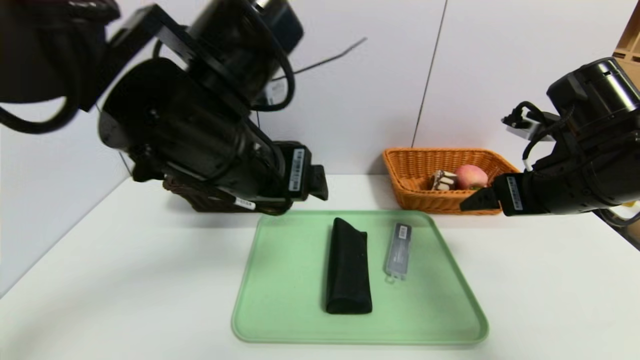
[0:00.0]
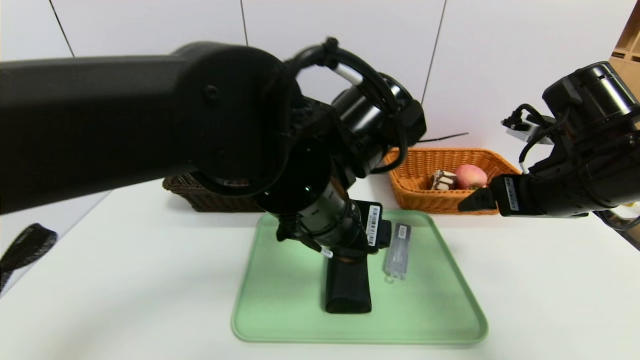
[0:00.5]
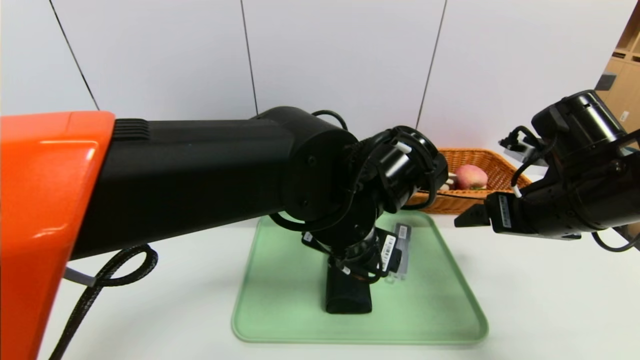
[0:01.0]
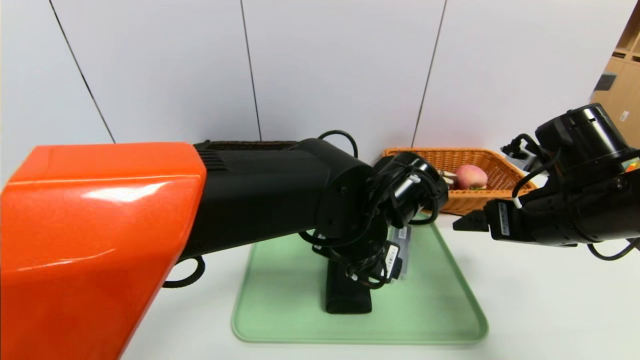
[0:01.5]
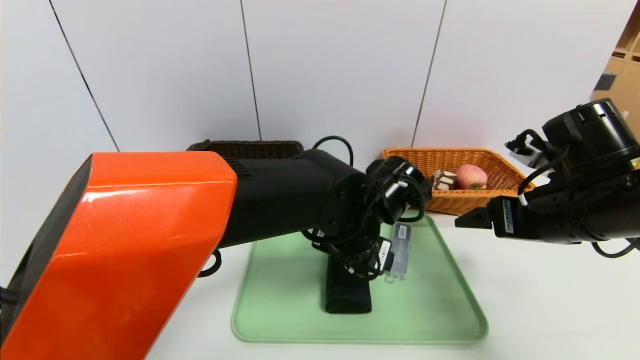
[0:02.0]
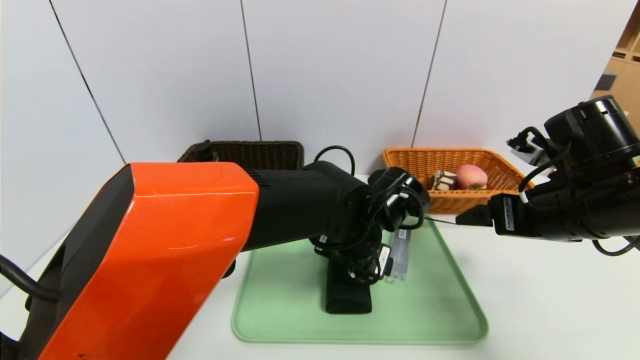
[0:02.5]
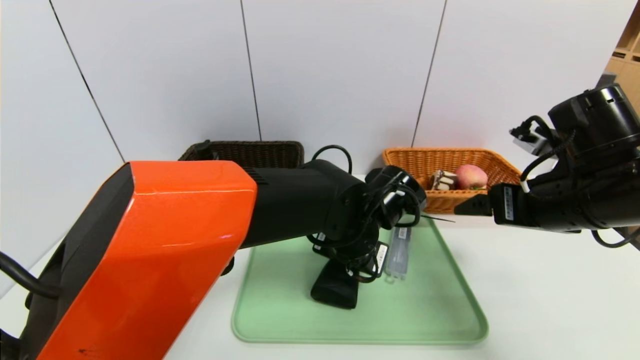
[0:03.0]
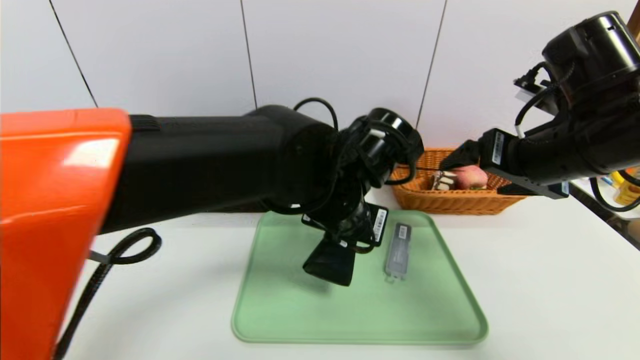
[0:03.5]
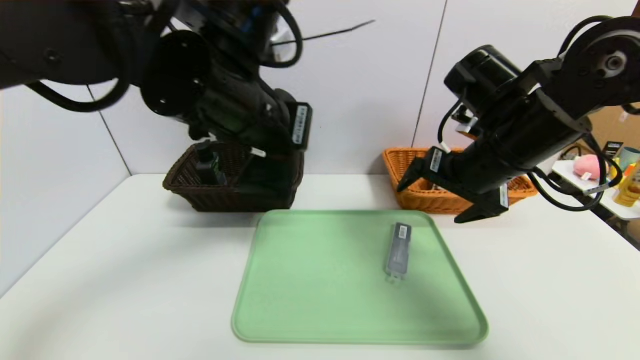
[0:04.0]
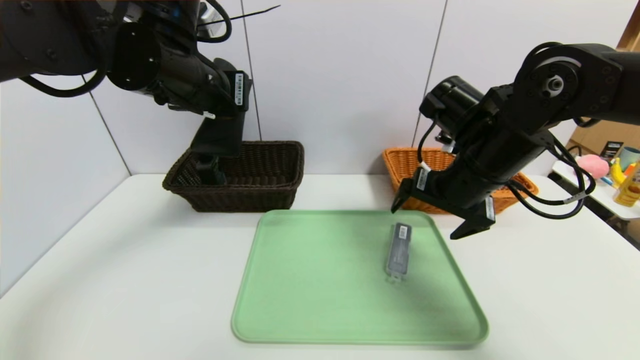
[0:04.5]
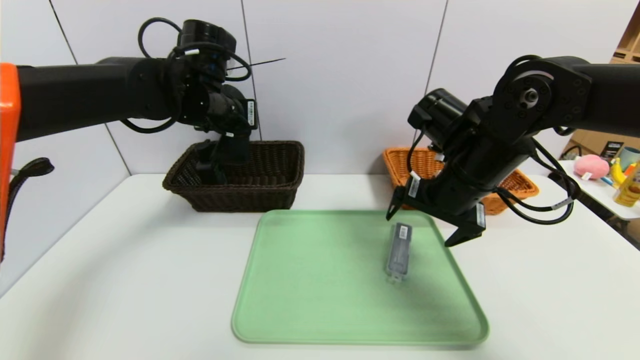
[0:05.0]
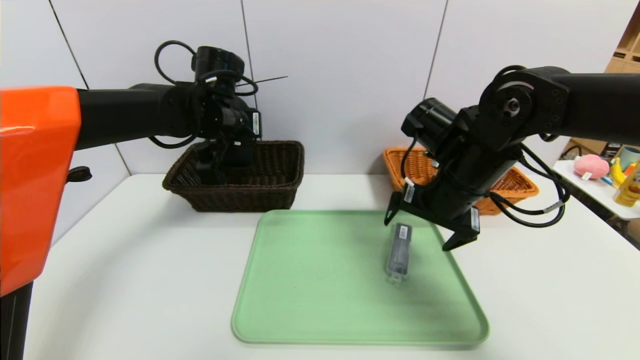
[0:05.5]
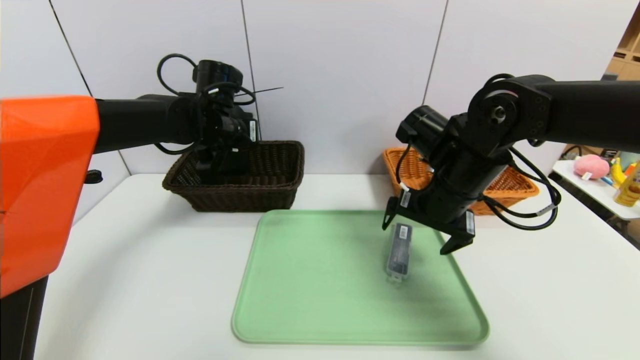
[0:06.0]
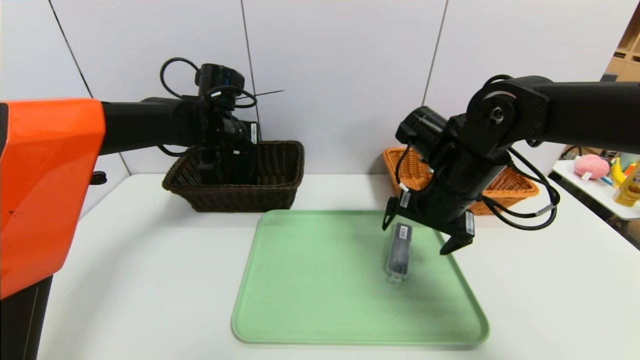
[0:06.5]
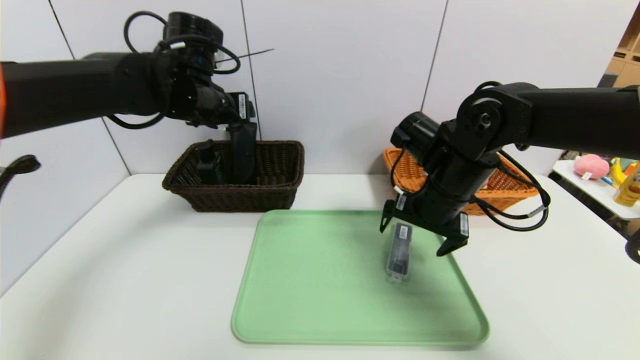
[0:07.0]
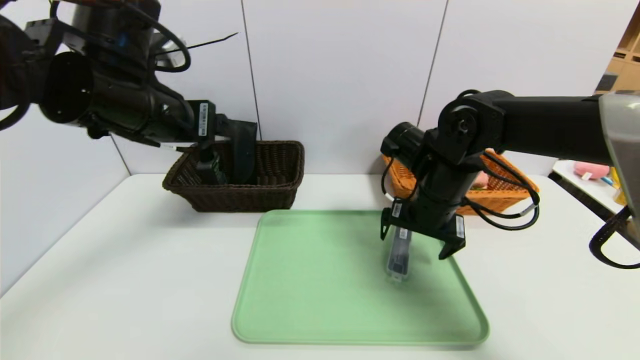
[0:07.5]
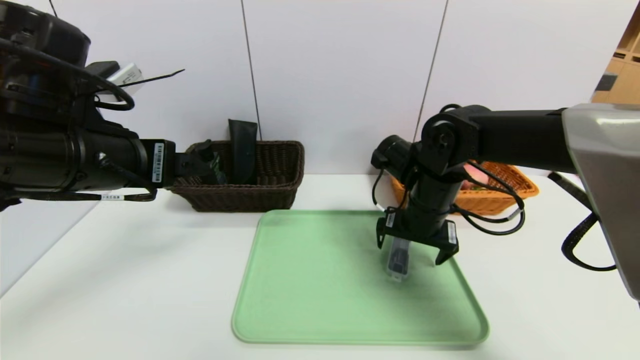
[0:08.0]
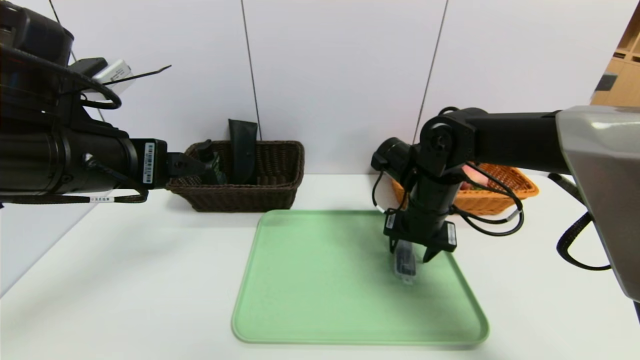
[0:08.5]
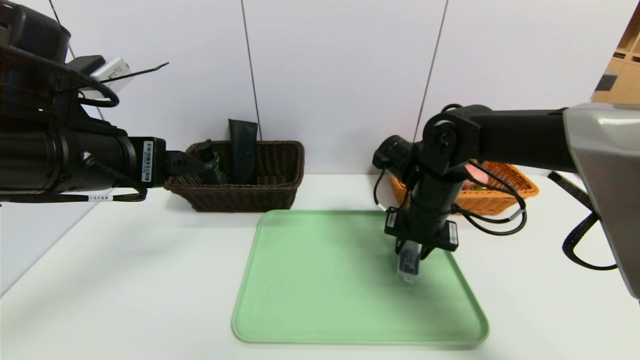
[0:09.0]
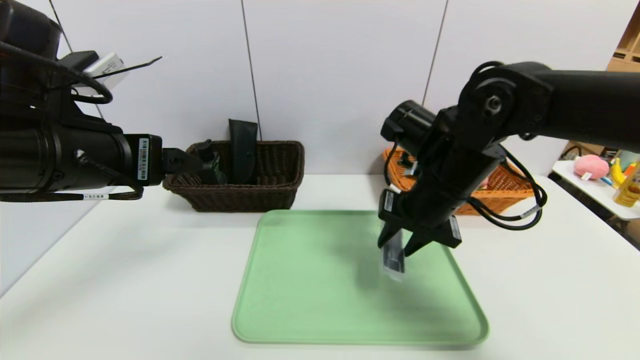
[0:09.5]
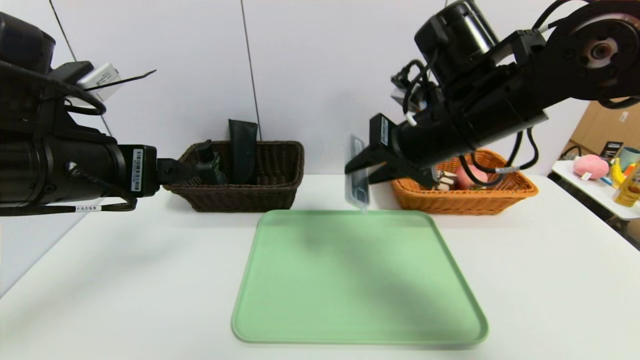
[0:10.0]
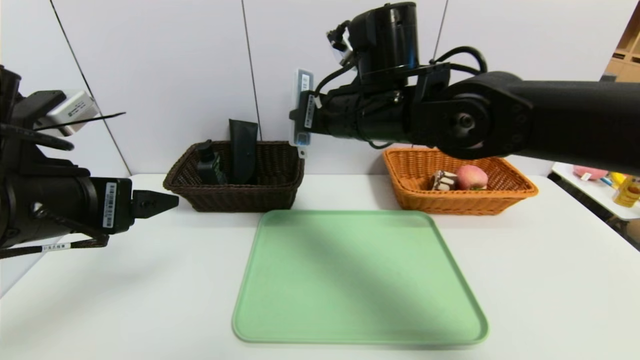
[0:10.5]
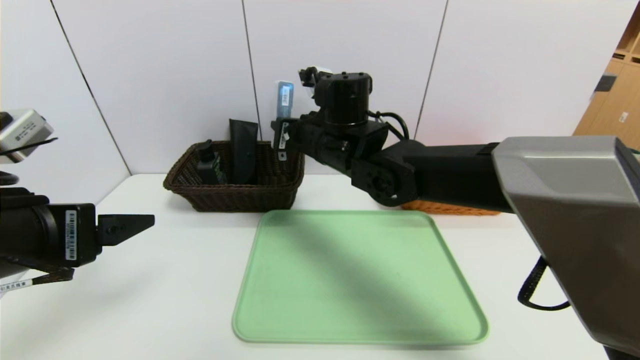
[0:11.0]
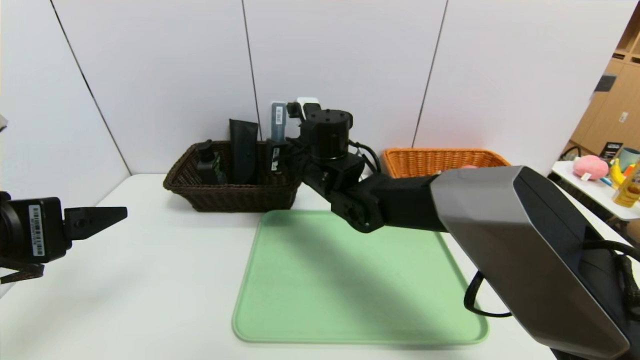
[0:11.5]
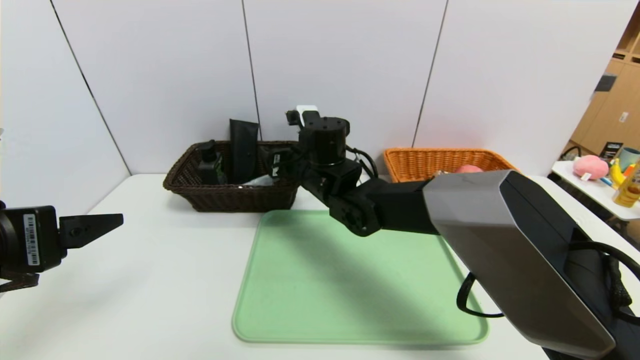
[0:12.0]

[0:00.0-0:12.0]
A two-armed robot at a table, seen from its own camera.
Task of the whole recording: place the food in the right basket with the right gripper, and place the non food items in the left basket with the left gripper.
Step, 0:00.0 to 0:07.0: Grasp the glasses case and put it in the left basket.
0:00.0 to 0:02.0: The left gripper goes about 20 cm downward and to the right.
0:02.0 to 0:04.0: The left gripper heads upward and to the left, covering roughly 20 cm, and closes its fingers; the right gripper goes approximately 10 cm to the left, upward and forward.
0:04.0 to 0:06.0: The right gripper shifts some 5 cm downward, while the left gripper shifts roughly 25 cm forward, downward and to the left.
0:06.0 to 0:08.0: The left gripper travels backward by roughly 20 cm, and opens its fingers. The right gripper shifts by roughly 5 cm.
0:08.0 to 0:10.0: The right gripper shifts about 15 cm upward, and closes its fingers.
0:10.0 to 0:12.0: The right gripper is displaced to the left, downward and forward by about 20 cm, and opens up. Meanwhile the left gripper travels backward by some 10 cm.

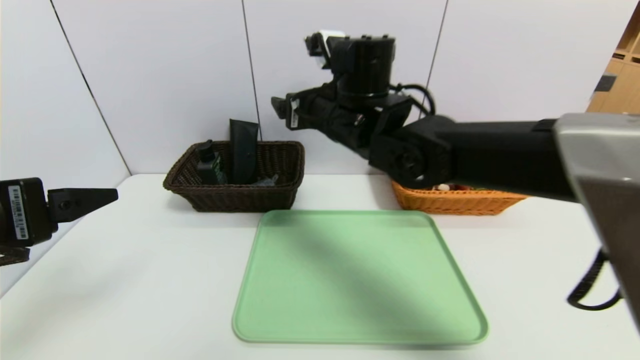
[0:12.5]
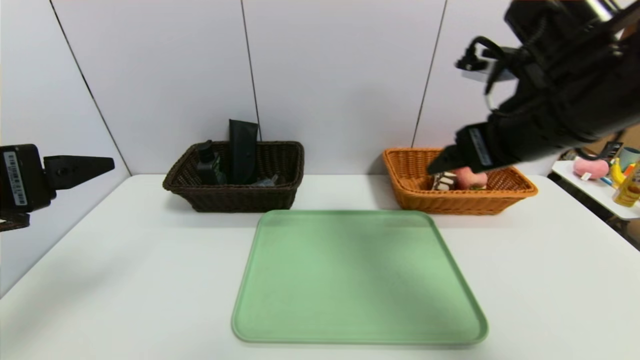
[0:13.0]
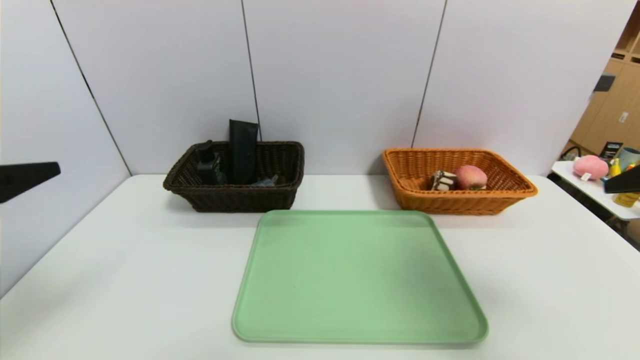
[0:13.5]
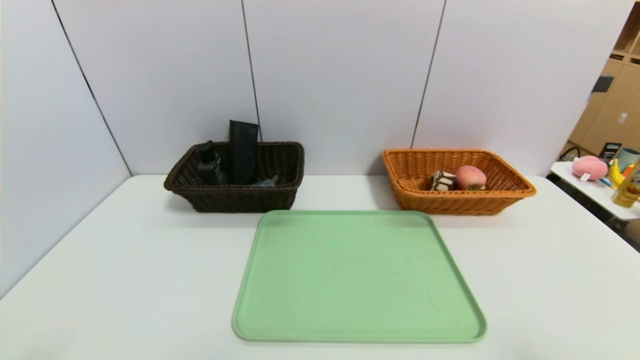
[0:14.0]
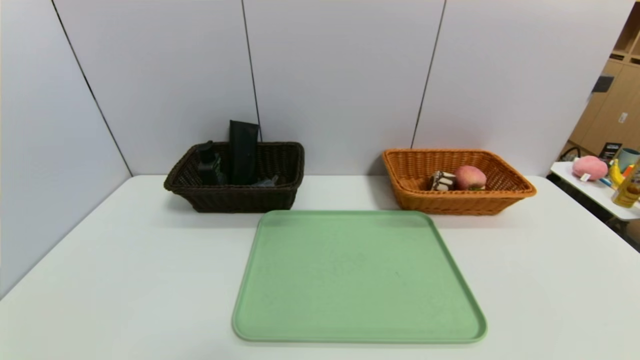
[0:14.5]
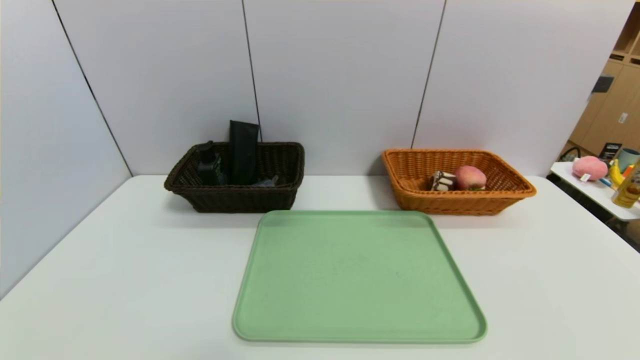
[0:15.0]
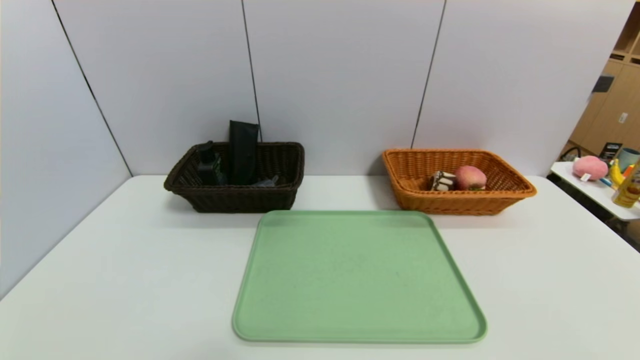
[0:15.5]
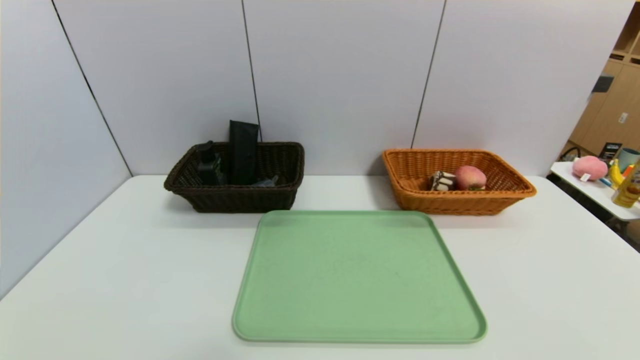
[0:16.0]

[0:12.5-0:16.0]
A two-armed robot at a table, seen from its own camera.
Task of the whole recording: place the food in the right basket with the right gripper, and place the non food items in the left basket with the left gripper.
0:12.5 to 0:14.5: The right gripper heads backward and to the right, covering approximately 50 cm. The left gripper heads backward and downward, covering approximately 20 cm.
